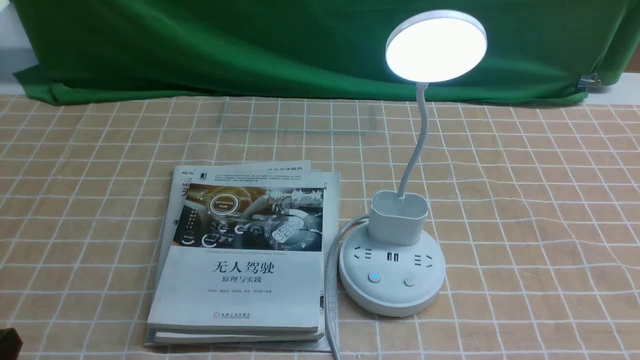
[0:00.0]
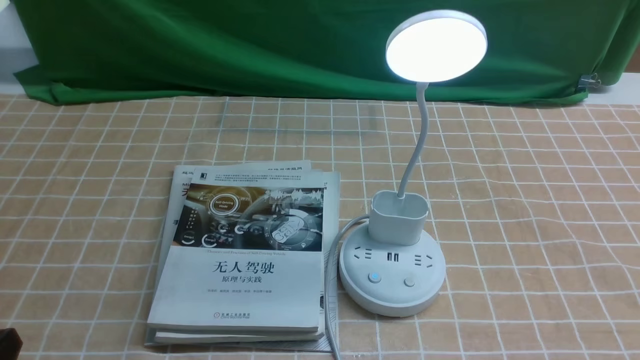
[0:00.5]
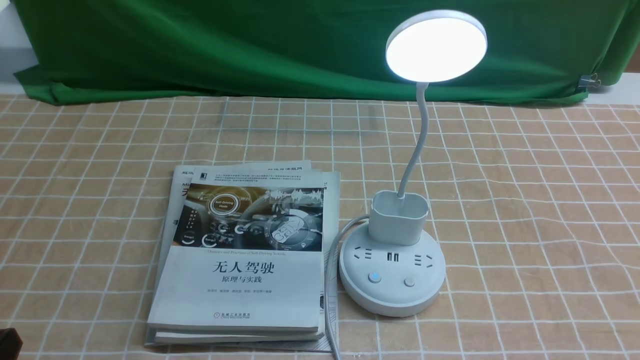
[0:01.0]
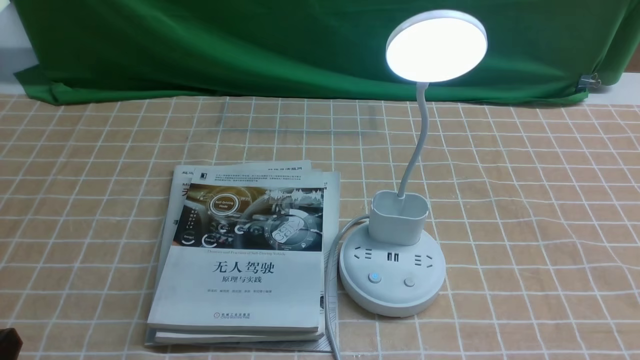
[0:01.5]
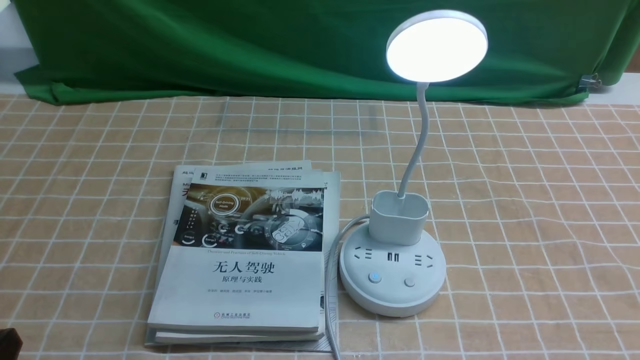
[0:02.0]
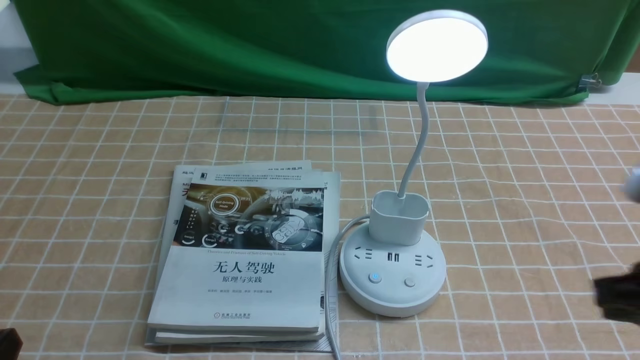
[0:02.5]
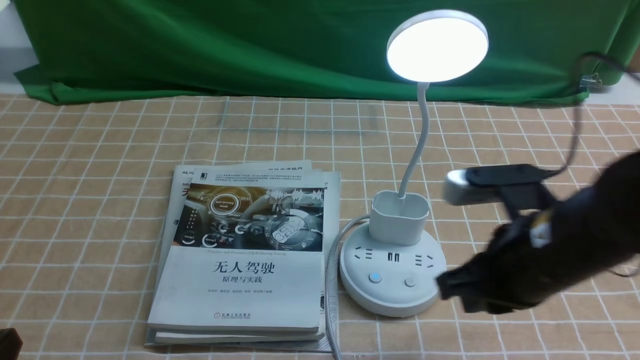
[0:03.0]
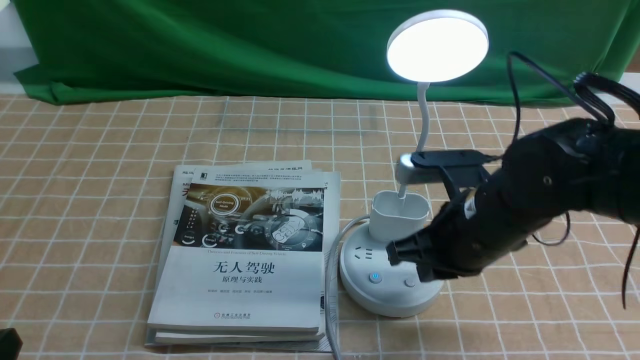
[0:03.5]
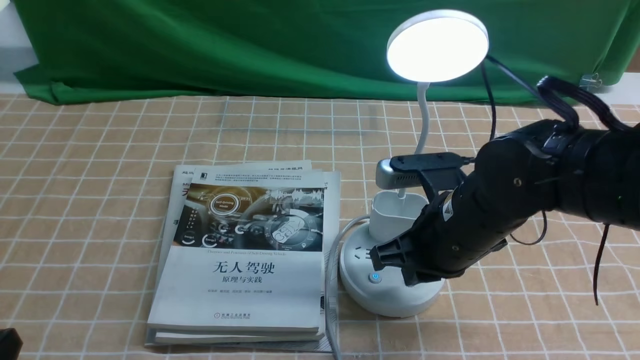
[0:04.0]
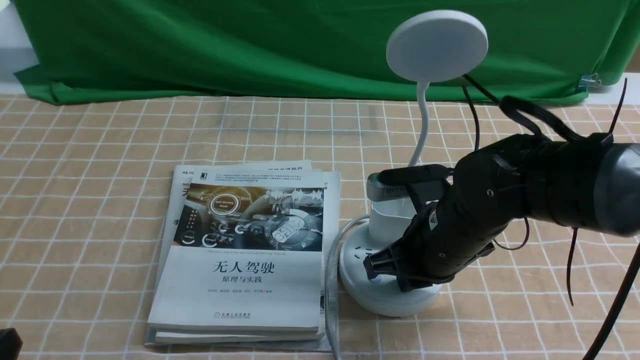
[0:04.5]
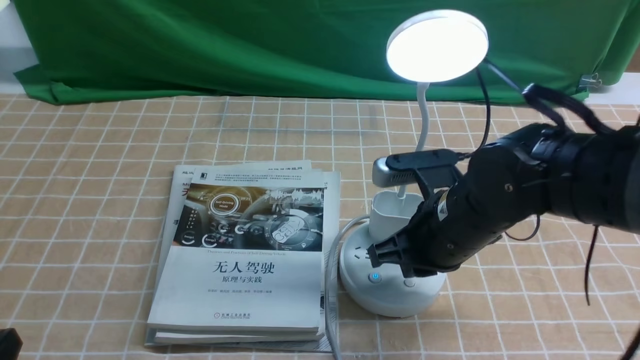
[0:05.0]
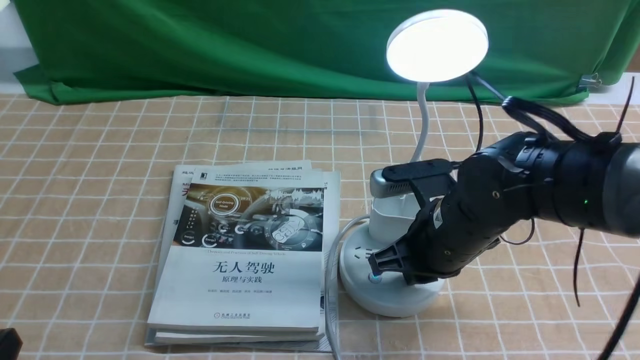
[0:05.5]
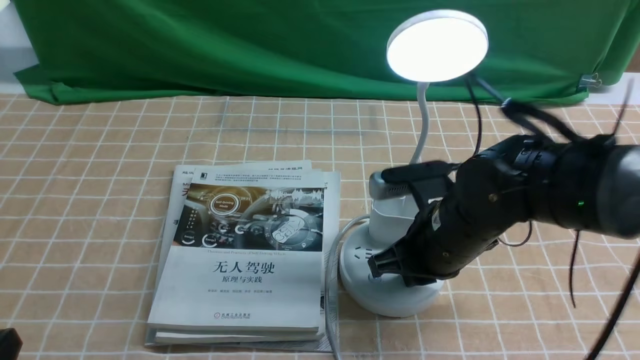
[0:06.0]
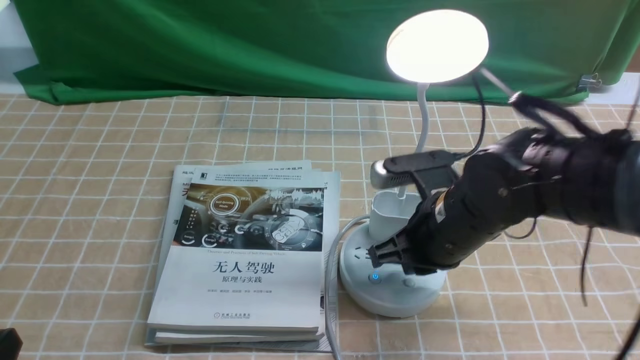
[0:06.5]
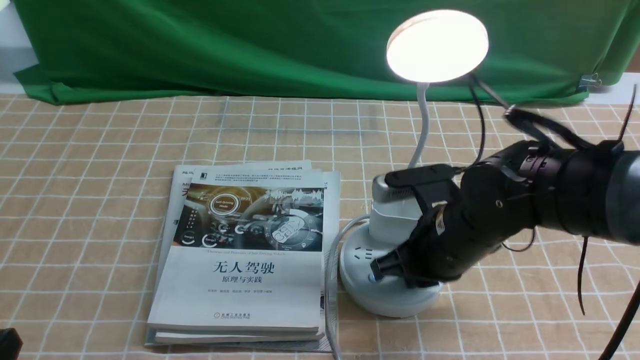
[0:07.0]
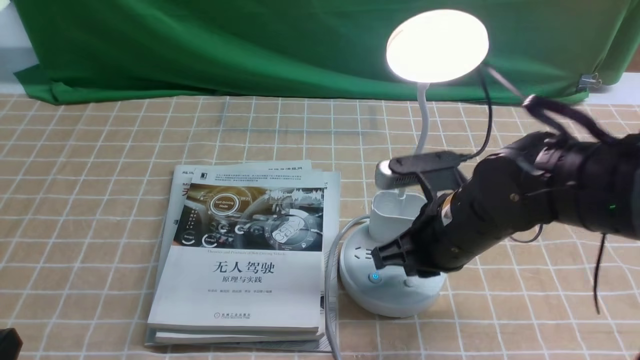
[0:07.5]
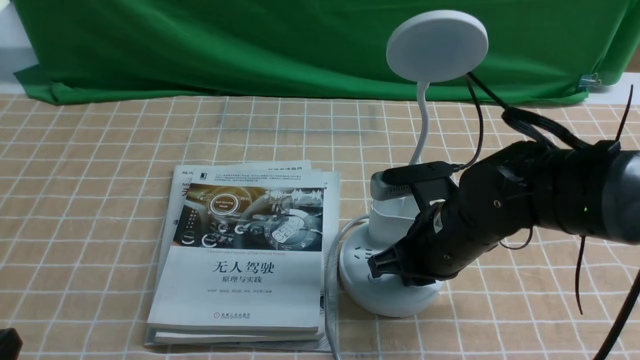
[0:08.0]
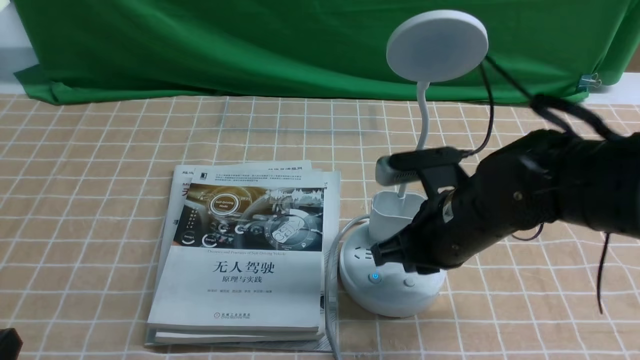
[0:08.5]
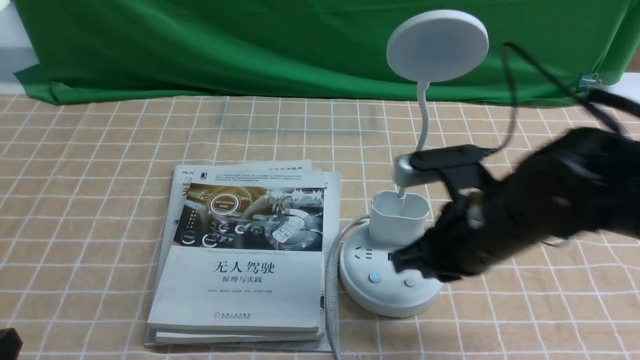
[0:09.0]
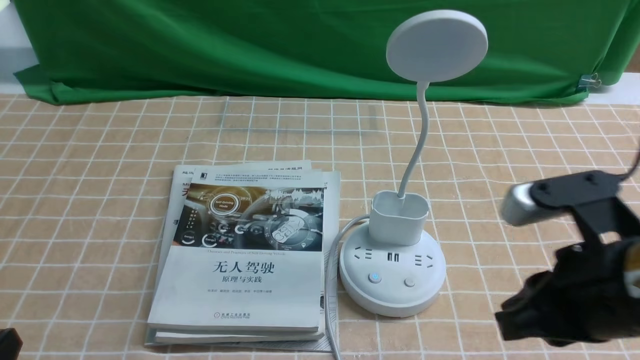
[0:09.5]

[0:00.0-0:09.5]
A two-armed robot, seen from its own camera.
Task of the whole recording: turn off the desk lamp on the light coffee tablecloth by hand.
Step, 0:00.0 to 0:08.0: use the right arm to press the button switch on the lamp holder.
0:02.0 to 0:04.0: The right gripper heads forward and to the left, covering roughly 25 cm.
0:04.0 to 0:05.5: There are only small adjustments of the grippers.
0:05.5 to 0:07.5: Neither gripper changes place.
0:07.5 to 0:09.5: The right gripper shifts roughly 15 cm backward, upward and to the right.

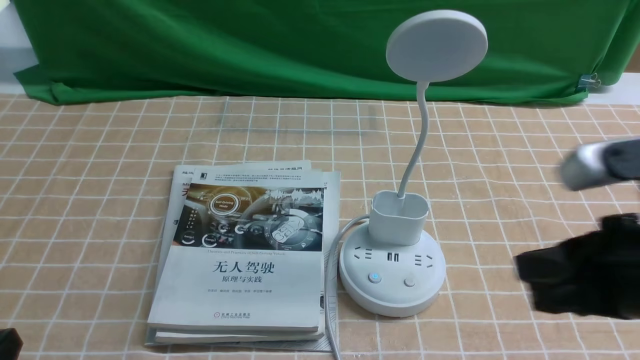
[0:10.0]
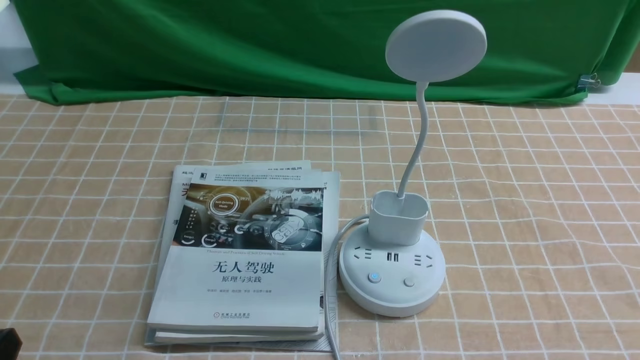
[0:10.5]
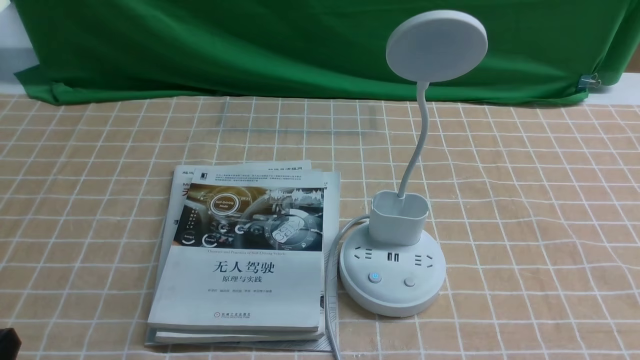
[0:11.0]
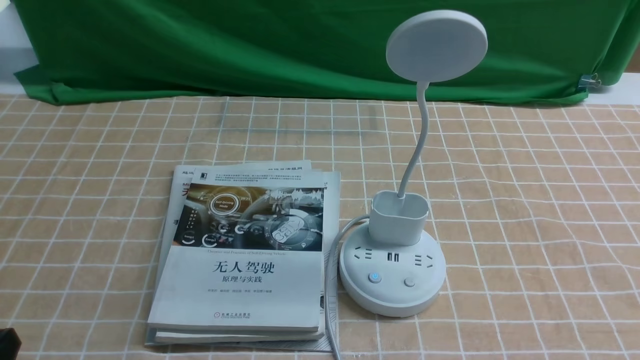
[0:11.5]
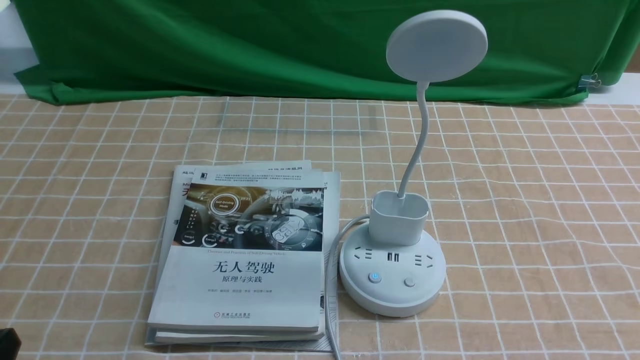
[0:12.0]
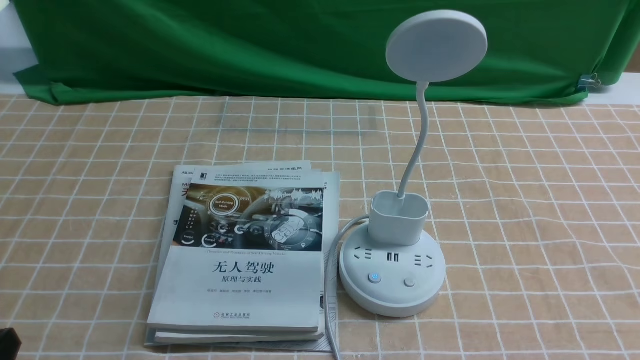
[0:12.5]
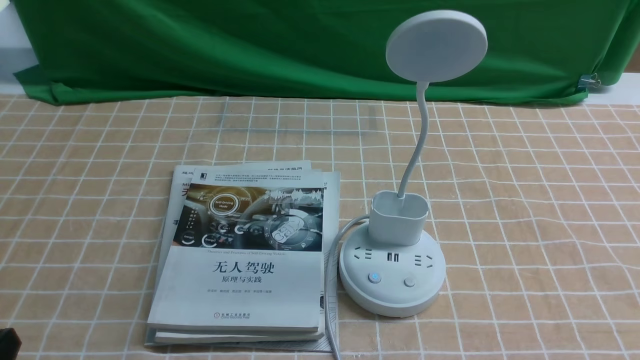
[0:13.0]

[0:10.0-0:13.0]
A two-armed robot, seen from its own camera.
Task of the whole recording: turn off the desk lamp on the light coffee tablecloth by hand.
0:10.0 to 0:11.5: The right gripper travels downward, backward and to the right by approximately 15 cm.

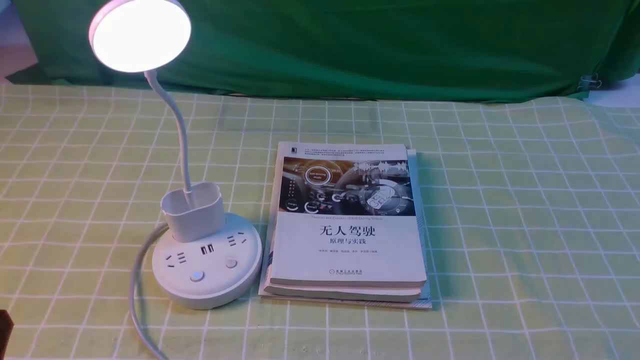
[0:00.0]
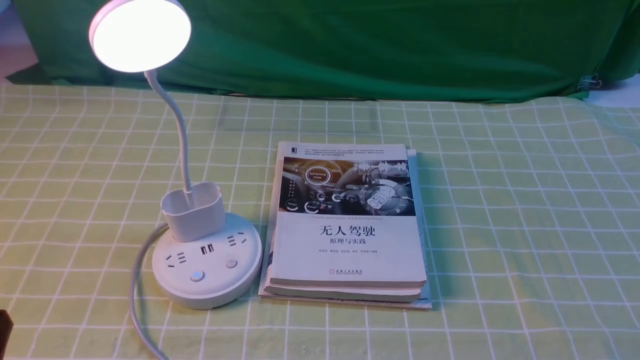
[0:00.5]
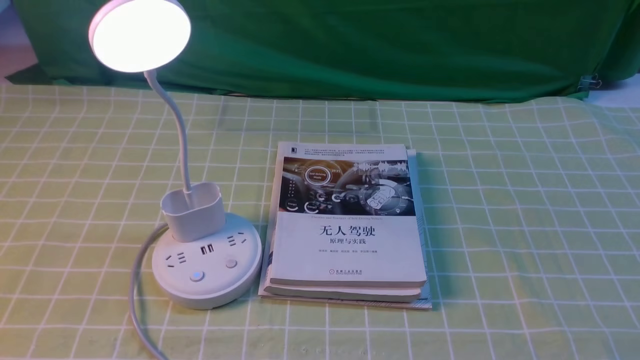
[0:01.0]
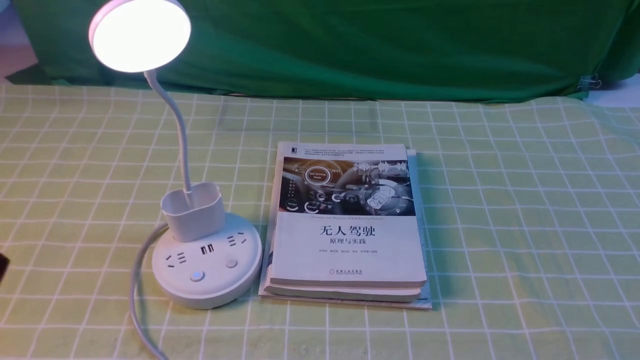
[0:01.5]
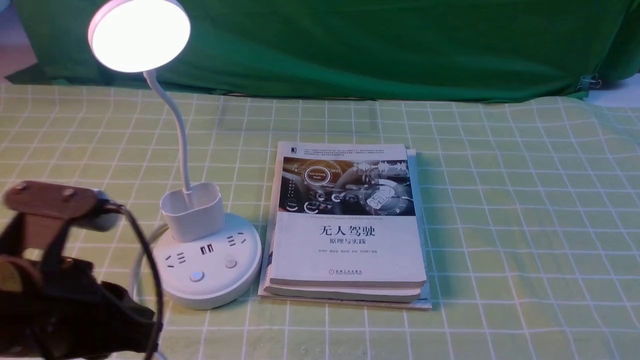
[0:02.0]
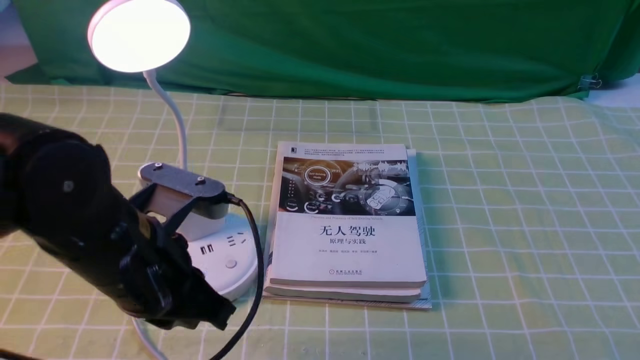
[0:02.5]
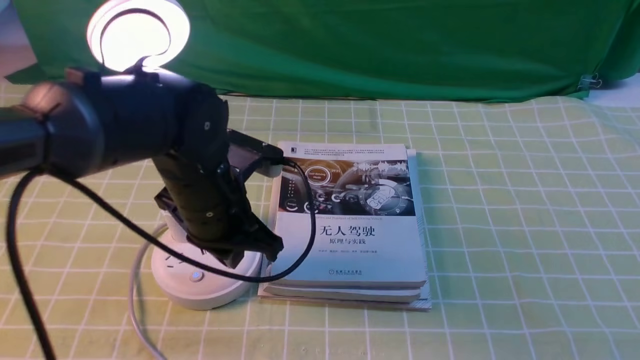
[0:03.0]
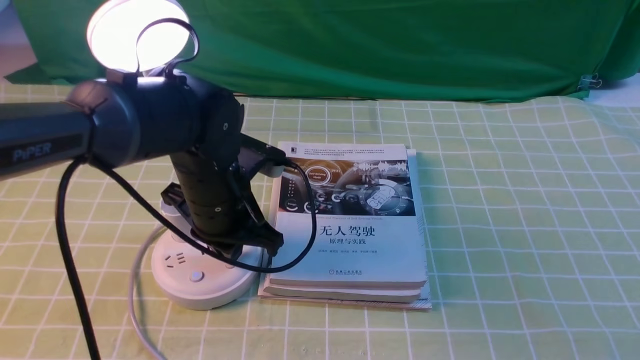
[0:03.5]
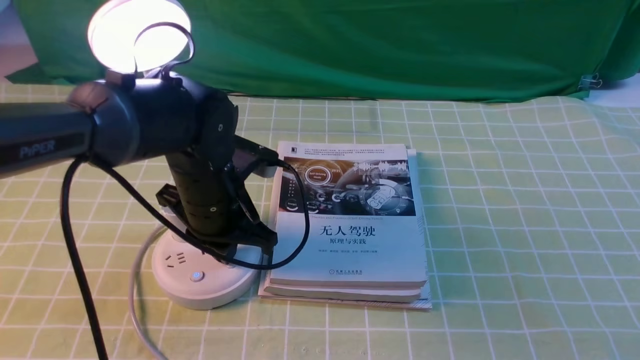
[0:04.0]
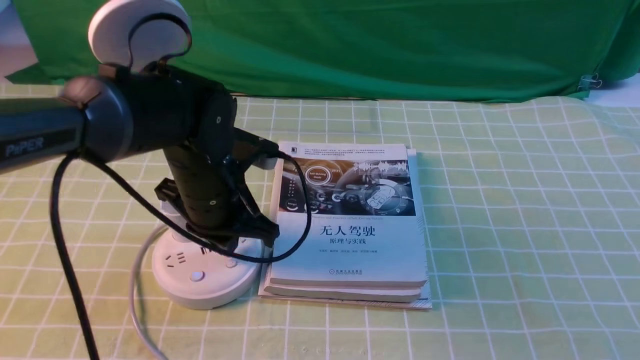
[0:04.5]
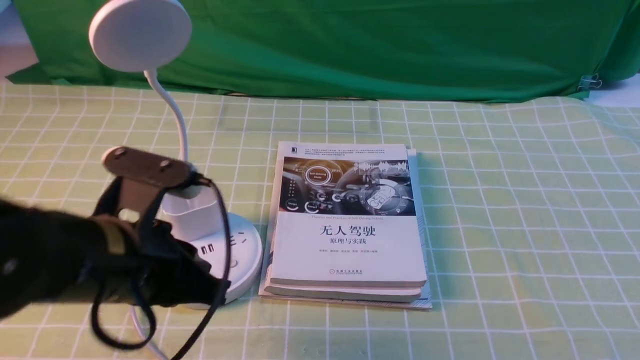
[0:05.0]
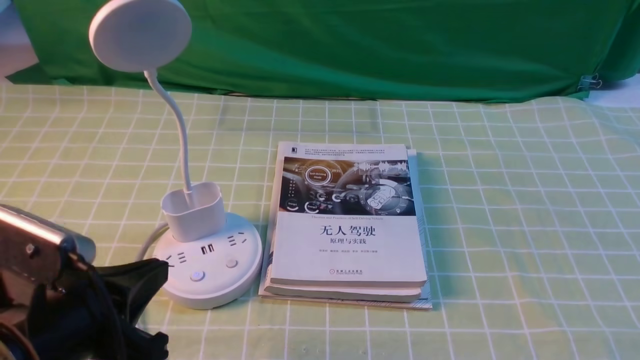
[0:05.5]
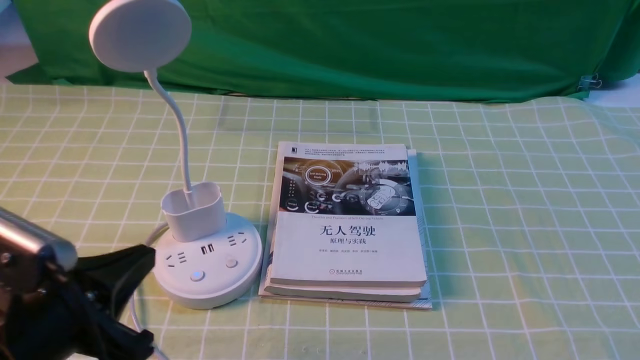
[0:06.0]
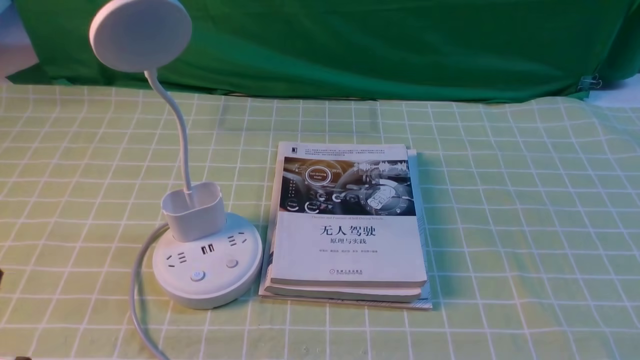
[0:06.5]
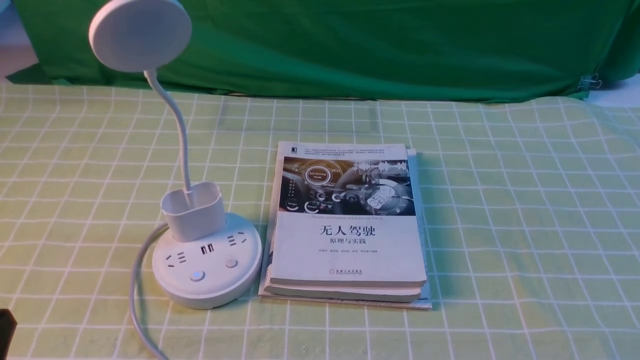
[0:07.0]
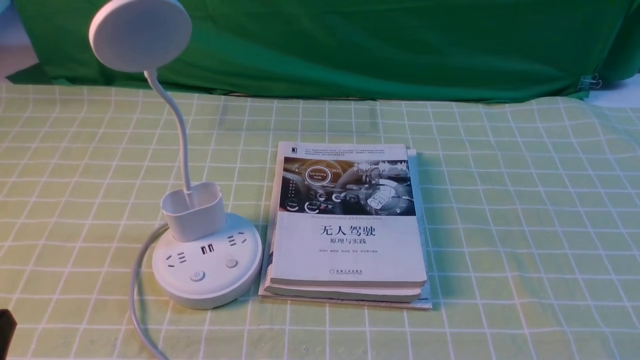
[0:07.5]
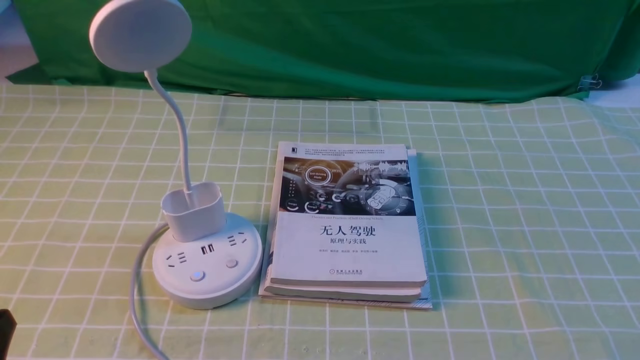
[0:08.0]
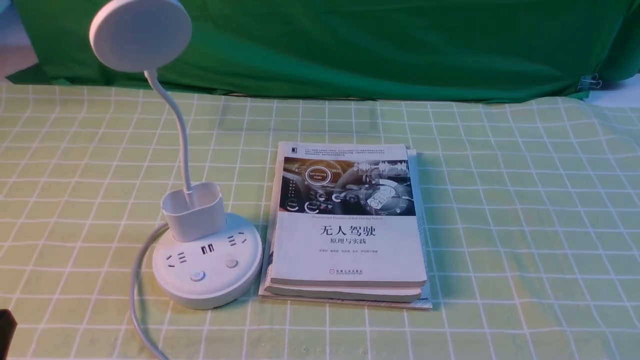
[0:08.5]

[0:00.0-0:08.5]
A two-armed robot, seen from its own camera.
Task of the whole recording: turn off the desk lamp on the green coffee tablecloth by hand.
Step, 0:00.0 to 0:04.5: use the left arm to press the button switch on the lamp holder.
0:00.0 to 0:02.0: The left gripper goes approximately 15 cm forward, upward and to the right.
0:02.0 to 0:04.0: The left gripper moves forward, to the right and downward, roughly 20 cm.
0:04.0 to 0:06.5: The left gripper shifts about 30 cm backward and to the left, and opens, then closes once more.
